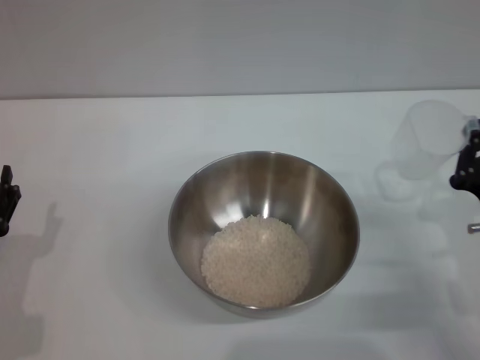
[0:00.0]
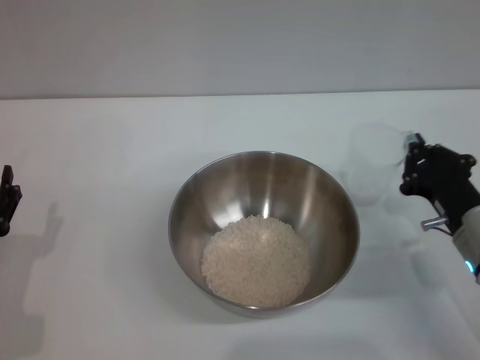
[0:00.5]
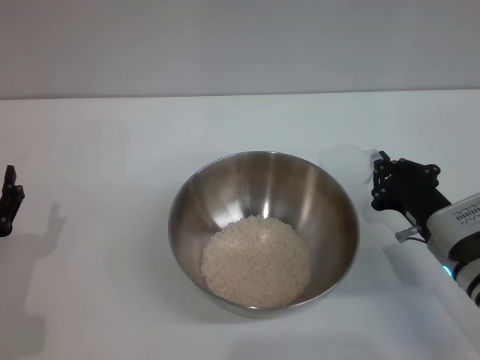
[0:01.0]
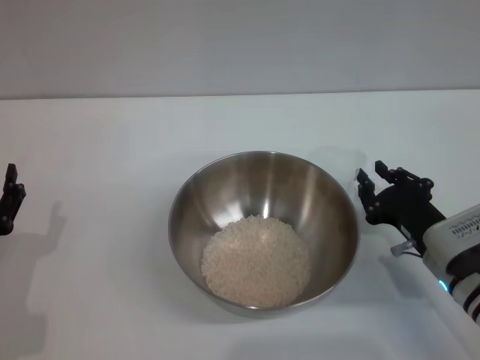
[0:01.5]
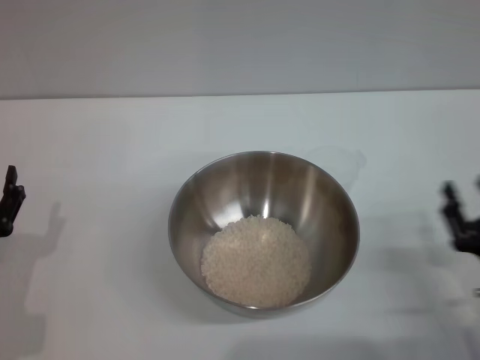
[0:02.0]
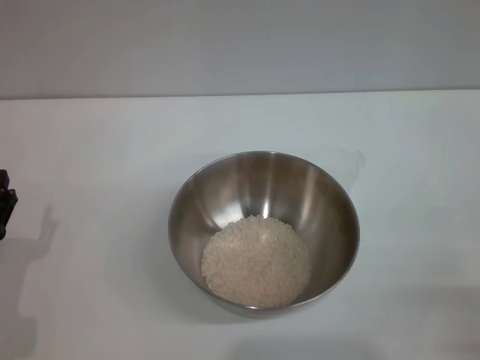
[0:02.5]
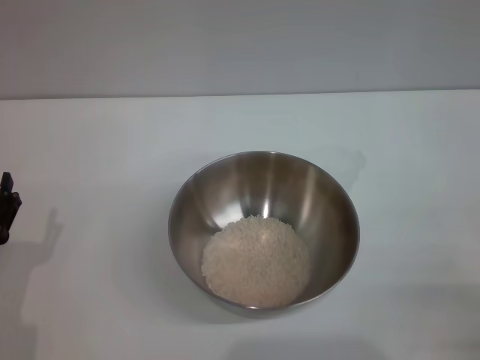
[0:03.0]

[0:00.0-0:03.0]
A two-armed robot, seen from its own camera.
Task of the whole recording: Place the bowl in the middle of the table with one hand and pour the rice from the grain cup into it with the other hand.
0:00.0 to 0:01.5: The right gripper shifts by about 5 cm.
0:01.5 to 0:03.0: The right gripper travels backward and to the right by approximately 15 cm, and opens.
